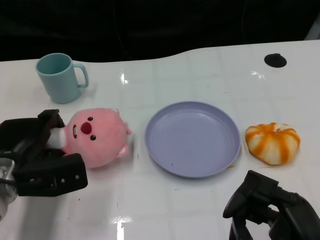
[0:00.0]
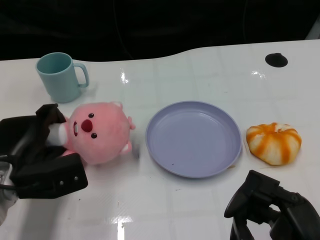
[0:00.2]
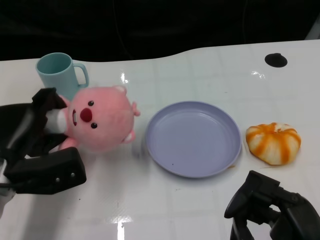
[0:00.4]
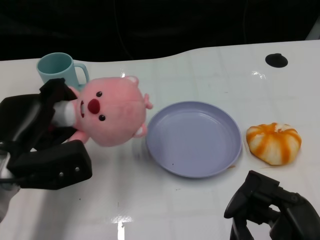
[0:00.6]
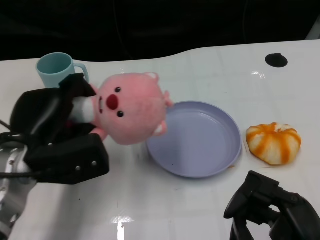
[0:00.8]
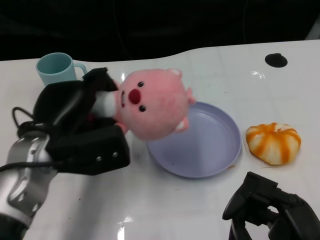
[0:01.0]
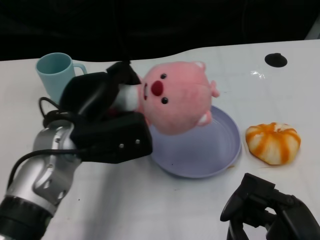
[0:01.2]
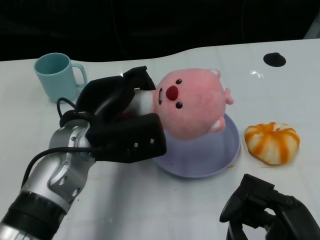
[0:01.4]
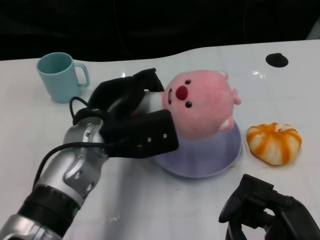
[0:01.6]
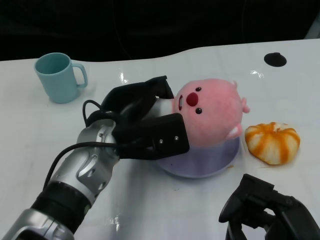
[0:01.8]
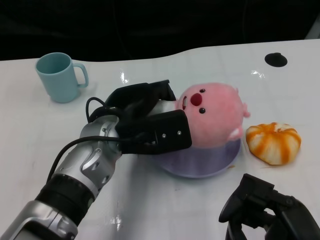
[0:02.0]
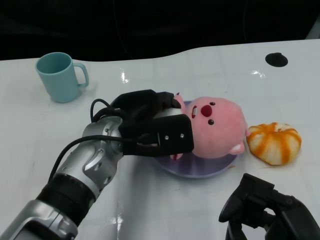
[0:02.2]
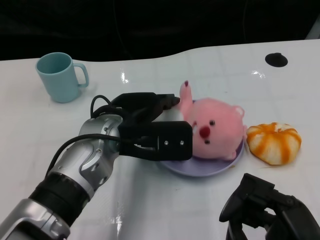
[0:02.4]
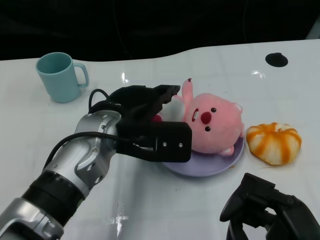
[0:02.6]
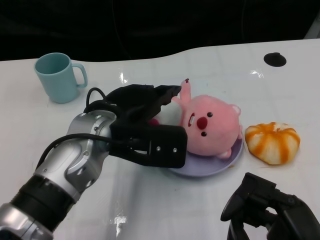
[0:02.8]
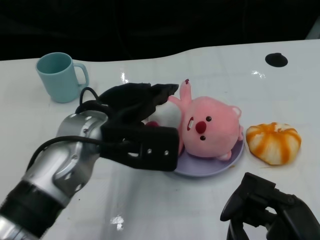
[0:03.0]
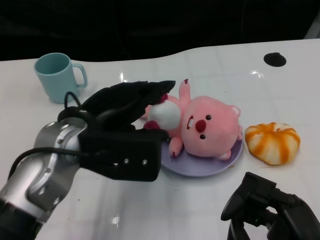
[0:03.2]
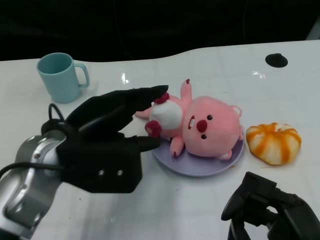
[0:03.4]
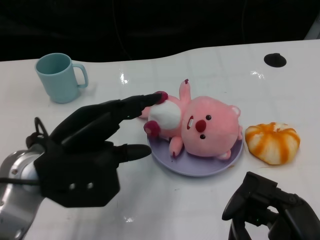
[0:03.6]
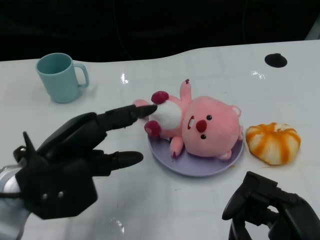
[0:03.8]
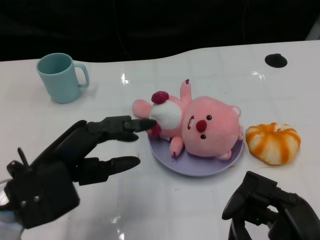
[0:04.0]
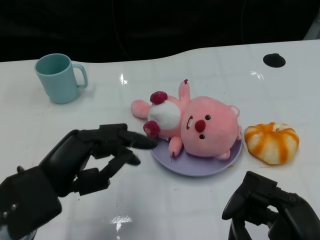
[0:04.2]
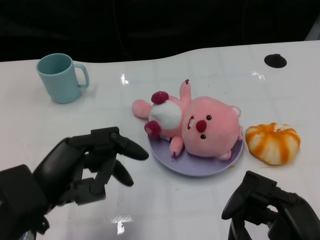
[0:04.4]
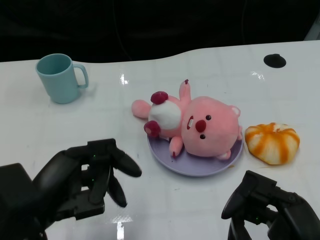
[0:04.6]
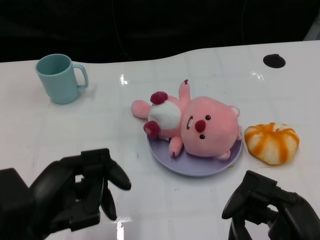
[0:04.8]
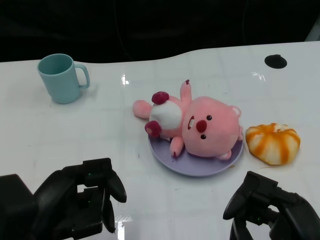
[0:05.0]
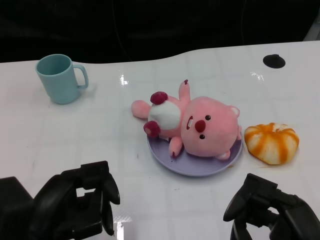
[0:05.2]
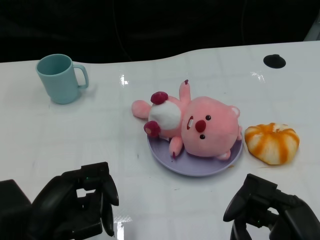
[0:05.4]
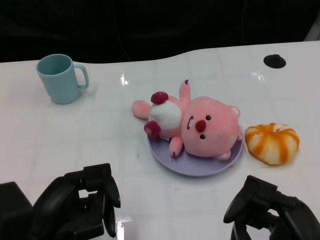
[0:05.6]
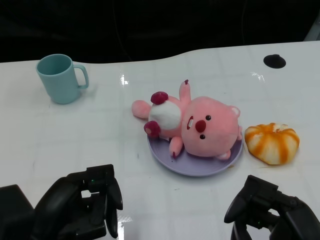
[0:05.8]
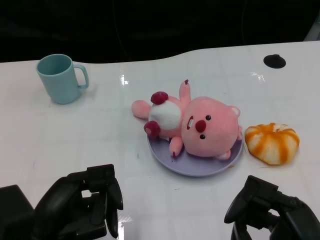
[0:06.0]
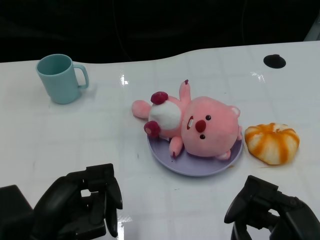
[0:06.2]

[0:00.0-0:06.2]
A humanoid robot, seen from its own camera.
Task of the whole recording: Pick up the doll on one side of the plate and place it into the plate.
Step, 0:00.4 to 0:02.8: Place the pink doll into the plate with the left gripper.
0:00.0 to 0:01.6: The left hand is displaced to the right and upward by about 15 cm.
0:03.2 to 0:04.6: The left hand is displaced backward and to the left by some 15 cm.
0:04.6 to 0:06.2: The hands stay close to where they were, moving slightly.

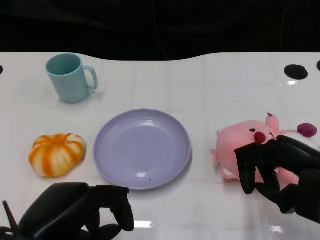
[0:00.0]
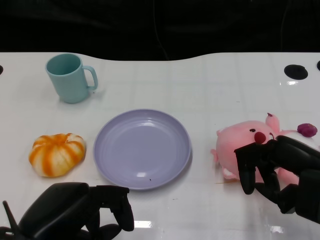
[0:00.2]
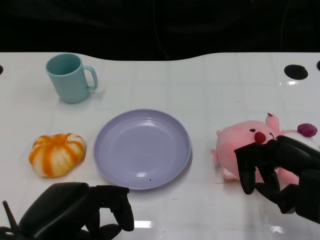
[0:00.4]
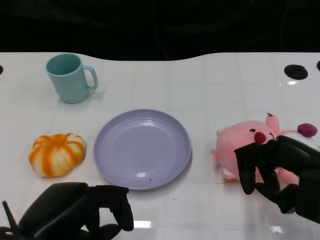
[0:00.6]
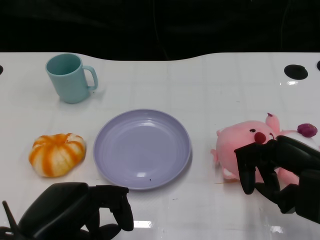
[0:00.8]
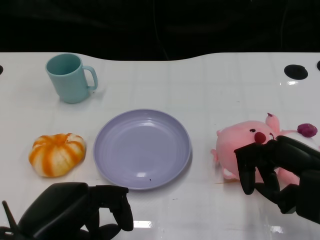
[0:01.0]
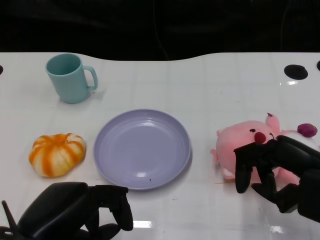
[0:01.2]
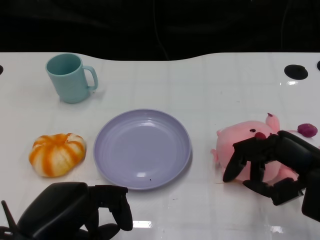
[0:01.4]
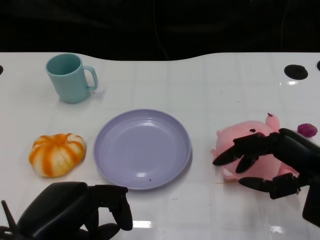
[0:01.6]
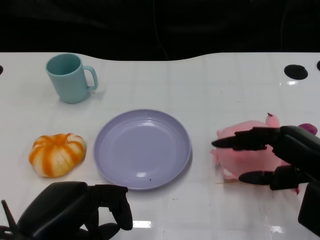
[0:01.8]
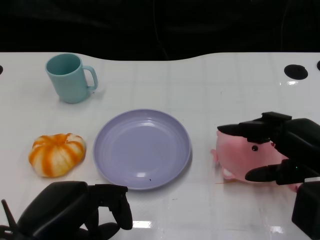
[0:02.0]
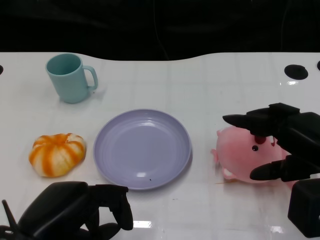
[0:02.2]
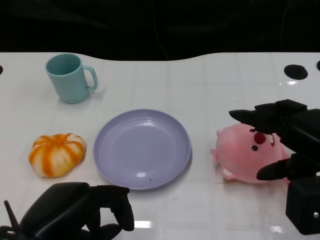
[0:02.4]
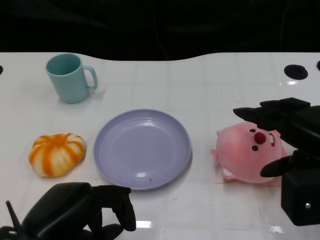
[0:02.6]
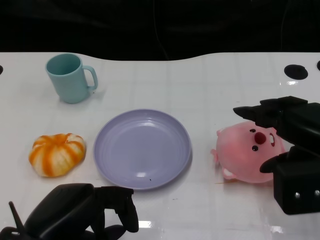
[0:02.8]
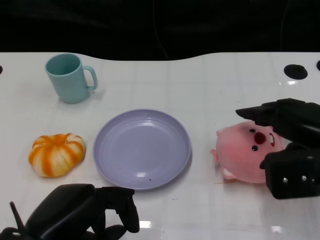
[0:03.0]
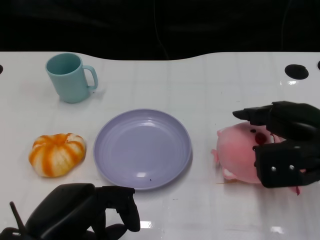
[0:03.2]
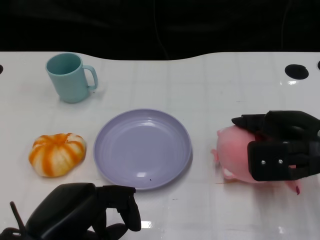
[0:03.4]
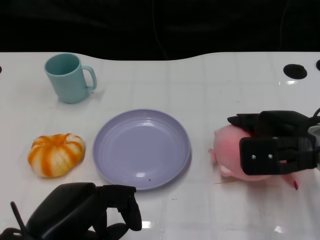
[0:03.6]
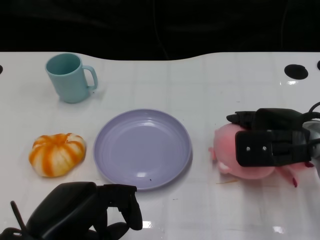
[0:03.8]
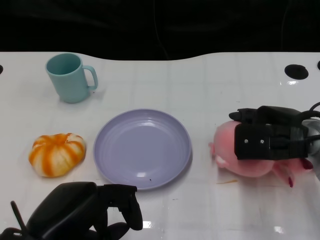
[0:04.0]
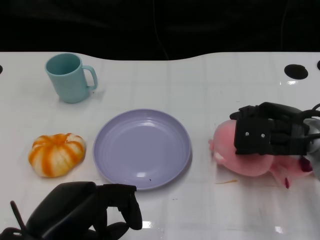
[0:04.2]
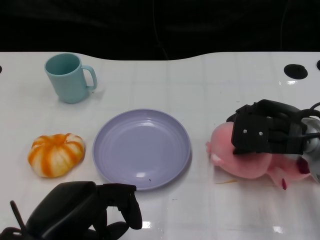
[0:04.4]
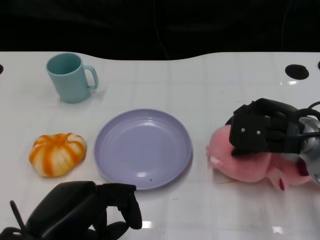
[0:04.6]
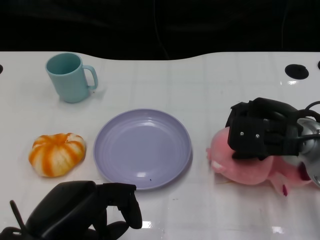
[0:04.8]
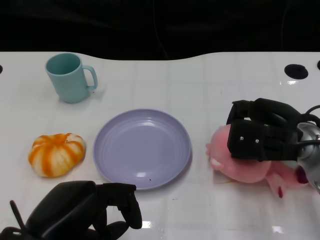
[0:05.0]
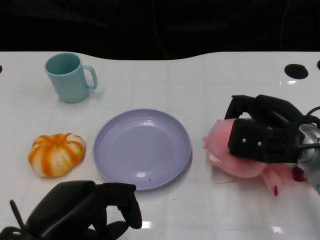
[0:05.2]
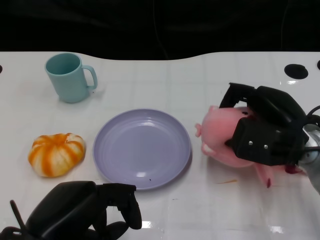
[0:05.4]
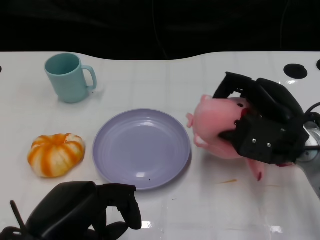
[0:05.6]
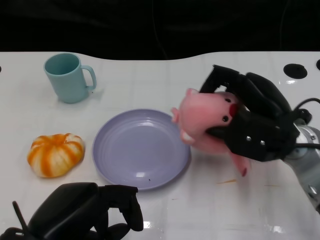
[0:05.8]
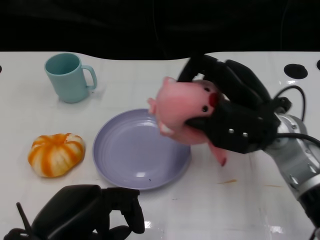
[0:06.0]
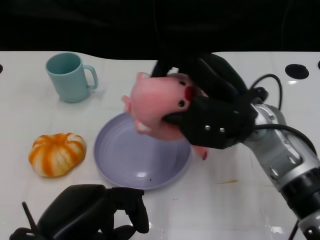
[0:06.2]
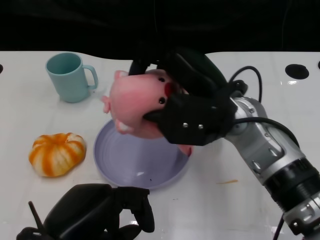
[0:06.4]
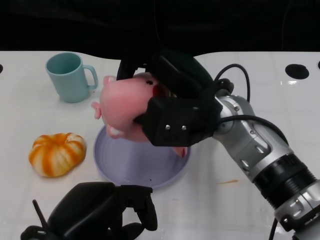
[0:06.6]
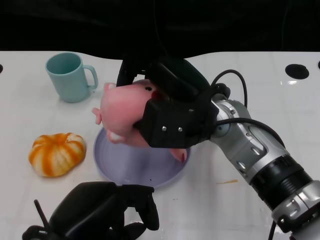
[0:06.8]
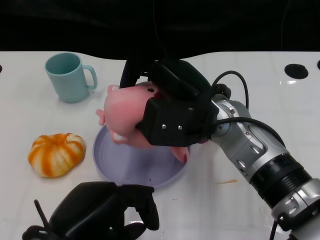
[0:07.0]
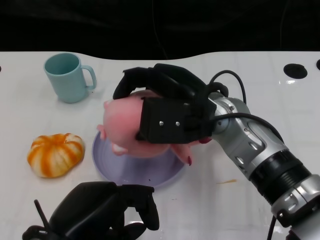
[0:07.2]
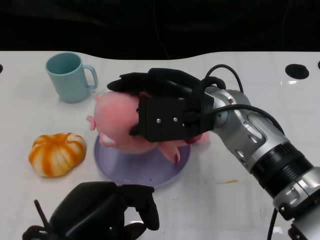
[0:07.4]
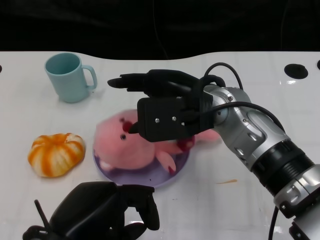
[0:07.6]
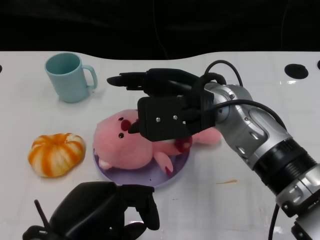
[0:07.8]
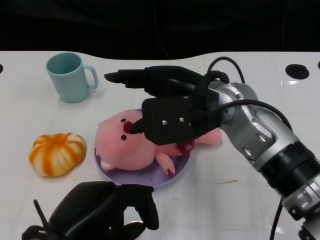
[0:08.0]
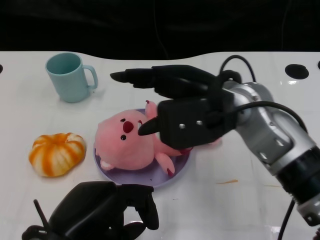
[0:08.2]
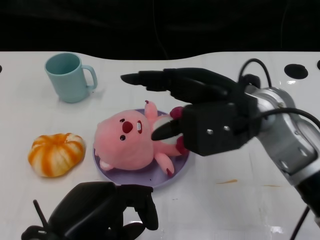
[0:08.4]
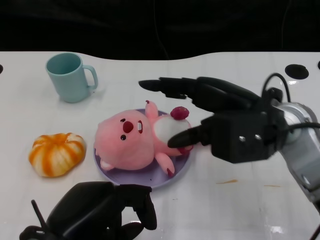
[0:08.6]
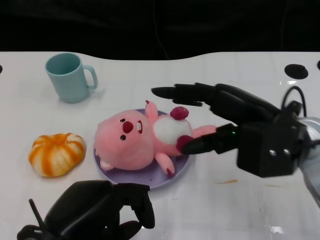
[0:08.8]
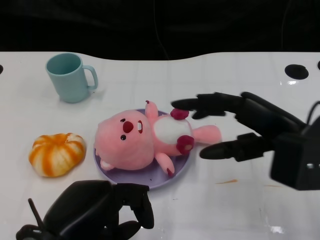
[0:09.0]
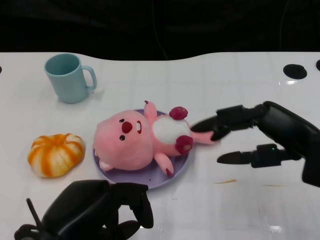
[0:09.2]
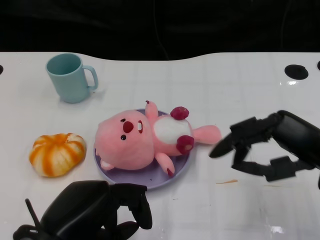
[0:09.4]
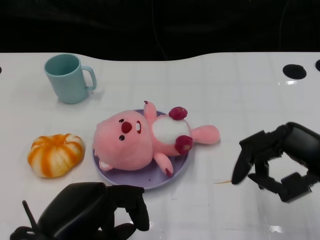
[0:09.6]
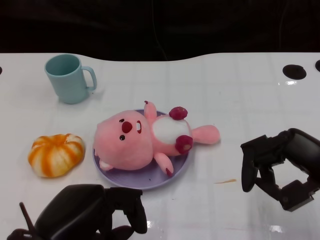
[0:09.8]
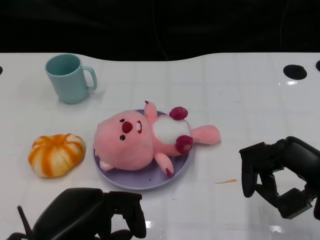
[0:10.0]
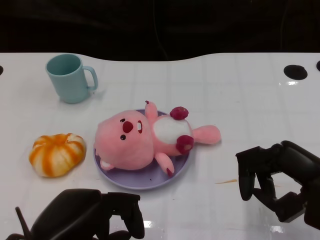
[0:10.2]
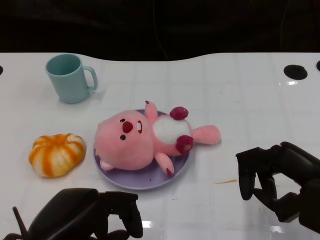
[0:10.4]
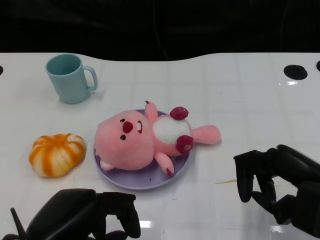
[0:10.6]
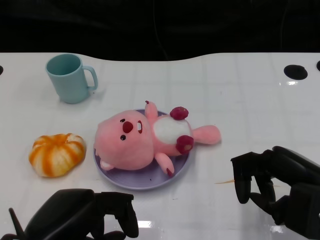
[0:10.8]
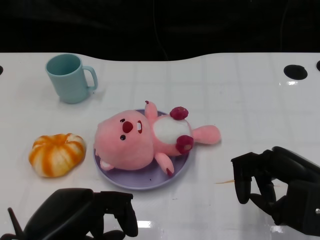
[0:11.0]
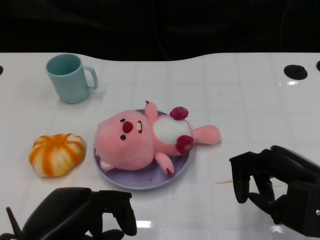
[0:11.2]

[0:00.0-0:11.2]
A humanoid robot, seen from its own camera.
Task of the whole recording: Pick up the doll on the other side of the plate and place it into the plate.
Step, 0:01.2 to 0:05.8: Grasp the pink doll with the right gripper.
Step, 0:06.0 to 0:08.6: Place the pink doll into the plate with the right gripper.
0:01.6 to 0:03.2: The right hand moves forward, some 5 cm.
0:03.2 to 0:04.8: The right hand changes place by about 5 cm.
0:04.8 to 0:06.4: The right hand is displaced to the left and upward by some 15 cm.
0:08.0 to 0:09.6: The right hand heads to the right and backward, covering roughly 20 cm.
0:09.6 to 0:11.2: The hands move only a little.

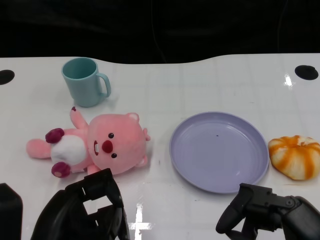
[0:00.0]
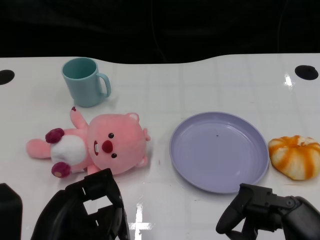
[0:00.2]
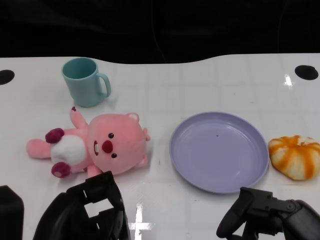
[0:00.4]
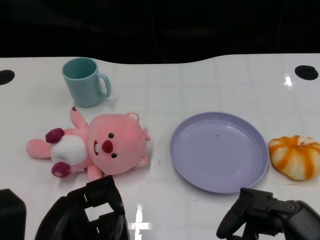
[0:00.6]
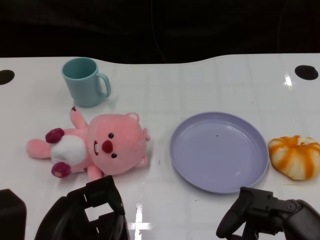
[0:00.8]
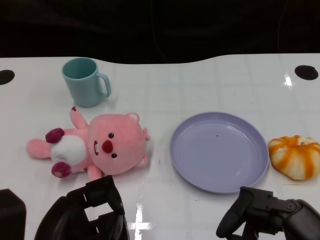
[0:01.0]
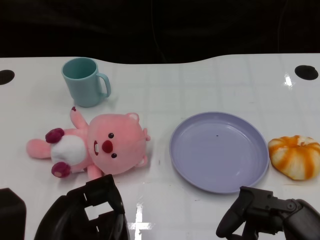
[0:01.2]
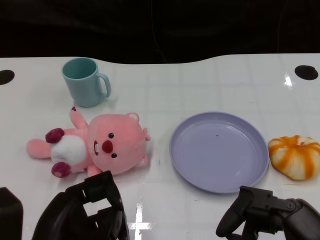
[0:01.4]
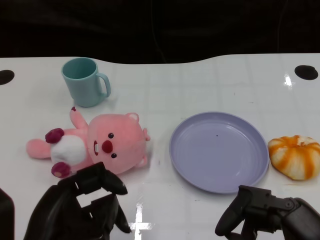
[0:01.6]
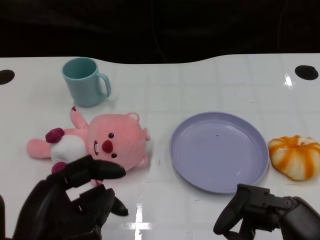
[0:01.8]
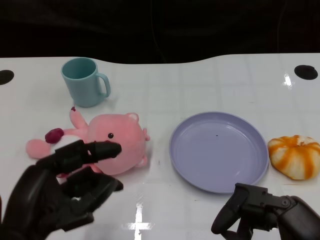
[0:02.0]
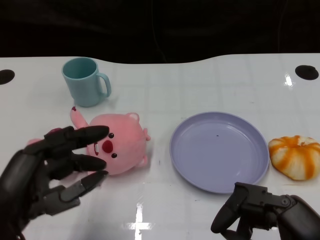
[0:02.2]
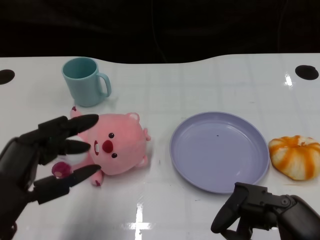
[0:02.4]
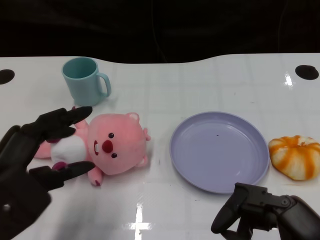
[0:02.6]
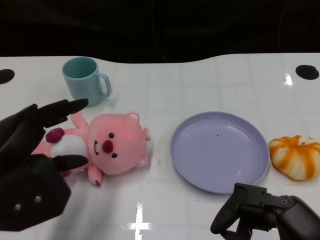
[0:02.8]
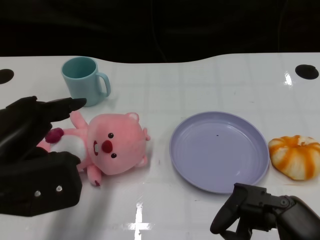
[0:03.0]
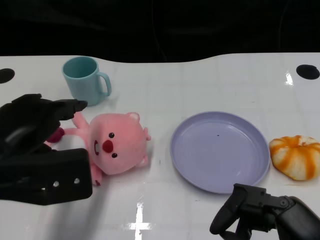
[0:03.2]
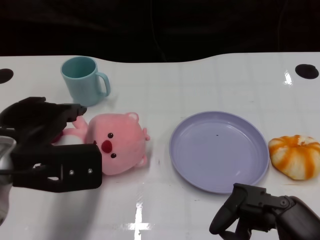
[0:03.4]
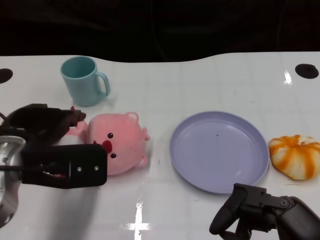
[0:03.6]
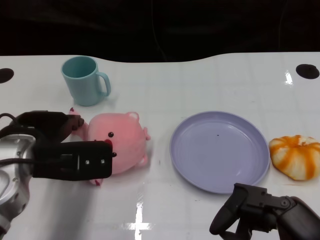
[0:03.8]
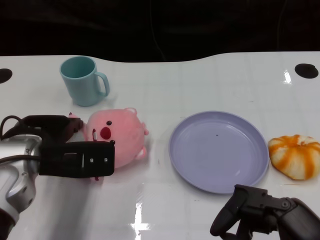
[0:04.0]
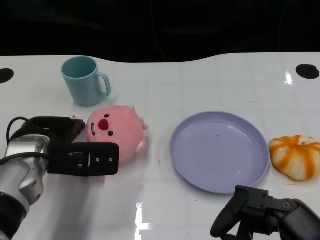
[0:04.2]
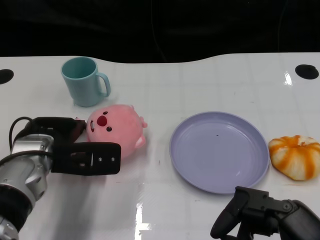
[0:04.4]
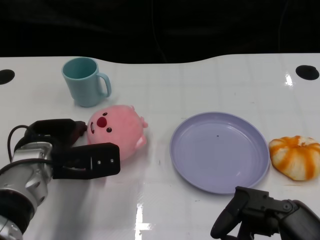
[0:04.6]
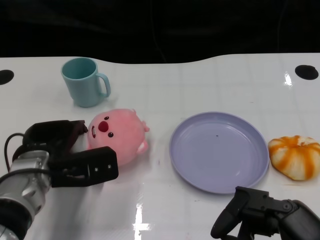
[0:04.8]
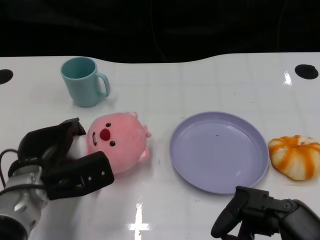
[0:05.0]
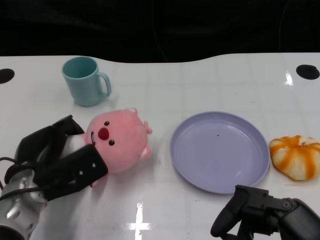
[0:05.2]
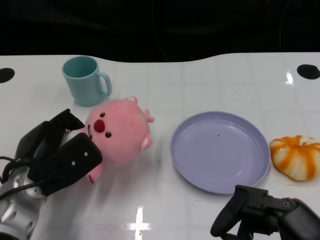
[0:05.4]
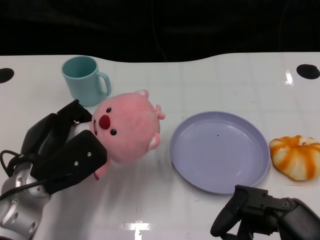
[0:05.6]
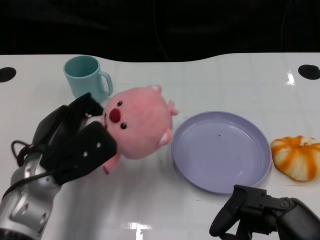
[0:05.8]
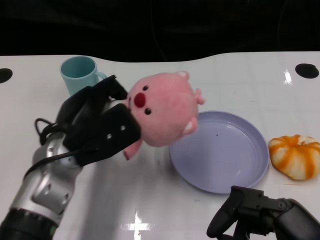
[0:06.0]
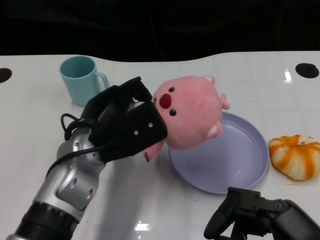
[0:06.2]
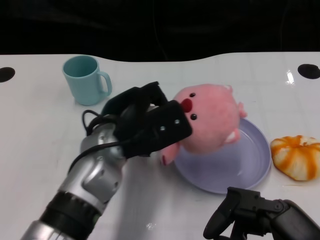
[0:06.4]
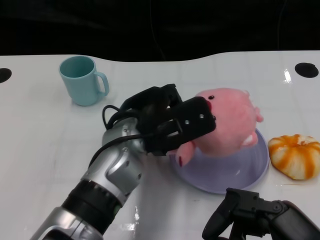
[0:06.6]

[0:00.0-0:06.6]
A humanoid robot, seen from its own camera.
Task of the whole recording: Pick up the doll on one side of the plate and place it into the plate.
Step, 0:01.4 to 0:05.4: Grasp the pink doll with the left gripper.
0:01.6 to 0:03.2: The left hand goes approximately 10 cm forward and upward.
0:03.2 to 0:05.0: The left hand goes some 15 cm downward and forward.
0:05.0 to 0:06.6: The left hand shifts about 15 cm to the right and upward.
